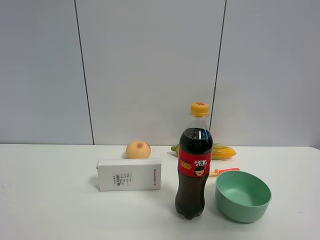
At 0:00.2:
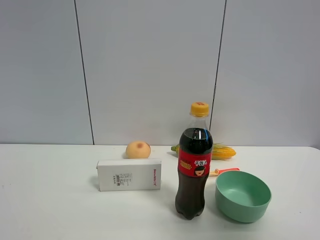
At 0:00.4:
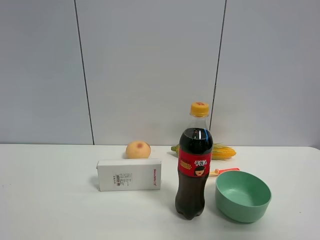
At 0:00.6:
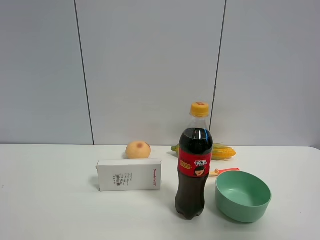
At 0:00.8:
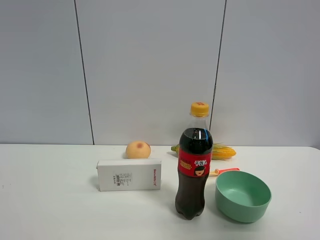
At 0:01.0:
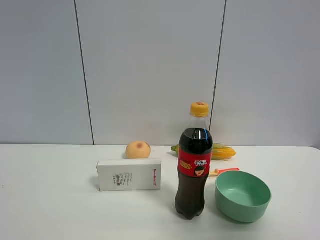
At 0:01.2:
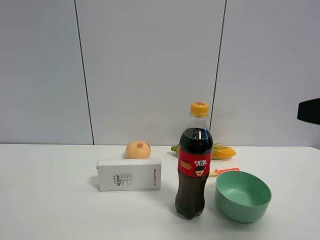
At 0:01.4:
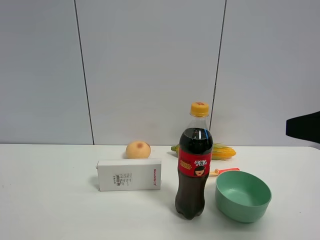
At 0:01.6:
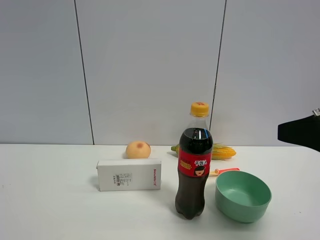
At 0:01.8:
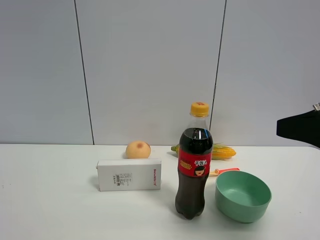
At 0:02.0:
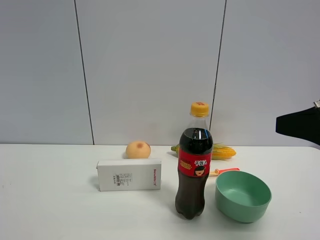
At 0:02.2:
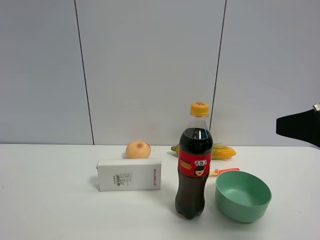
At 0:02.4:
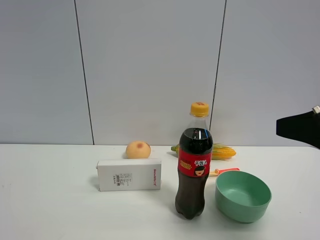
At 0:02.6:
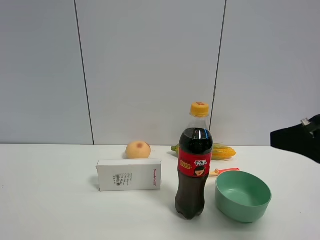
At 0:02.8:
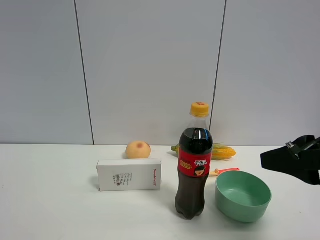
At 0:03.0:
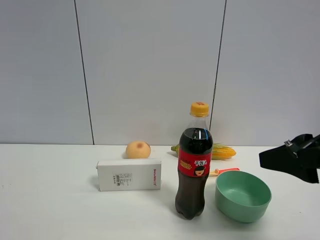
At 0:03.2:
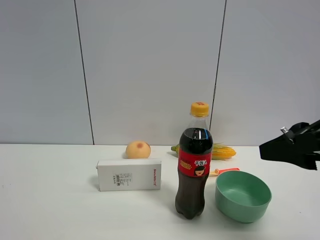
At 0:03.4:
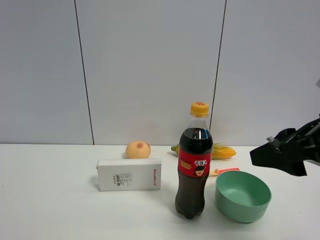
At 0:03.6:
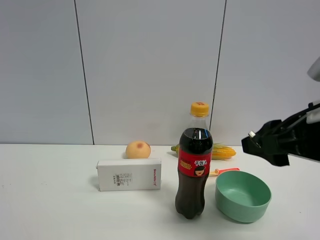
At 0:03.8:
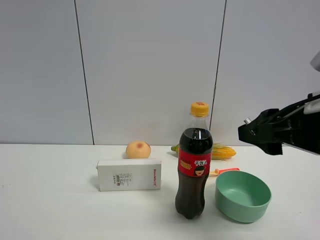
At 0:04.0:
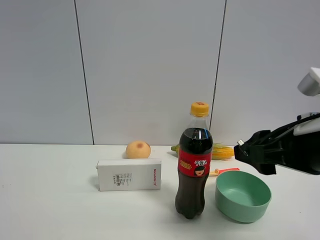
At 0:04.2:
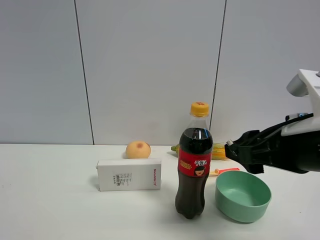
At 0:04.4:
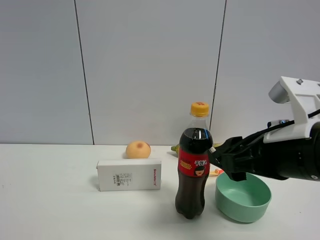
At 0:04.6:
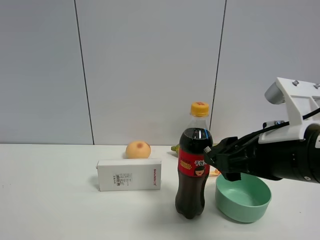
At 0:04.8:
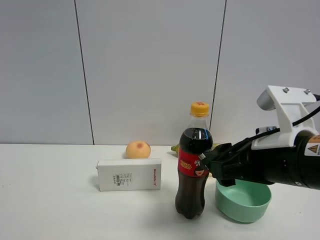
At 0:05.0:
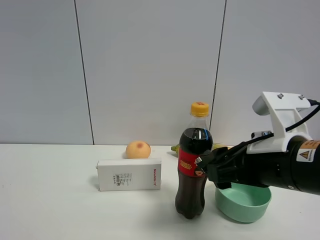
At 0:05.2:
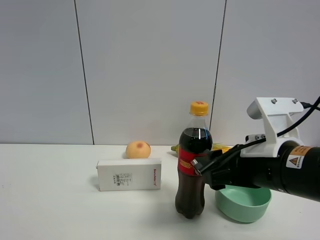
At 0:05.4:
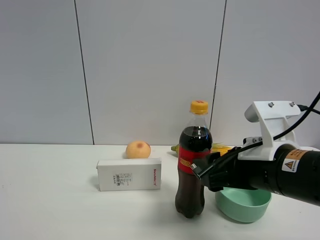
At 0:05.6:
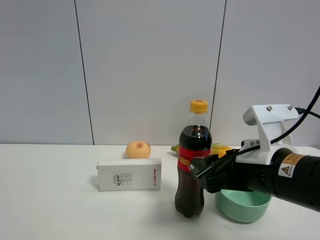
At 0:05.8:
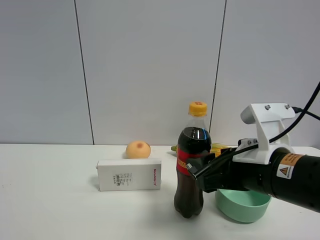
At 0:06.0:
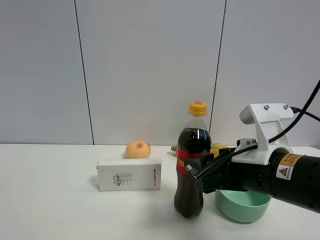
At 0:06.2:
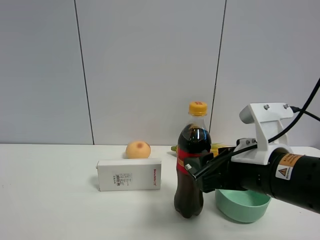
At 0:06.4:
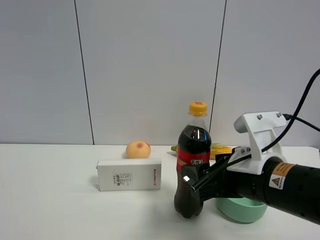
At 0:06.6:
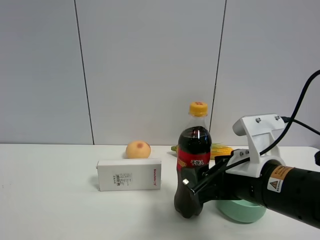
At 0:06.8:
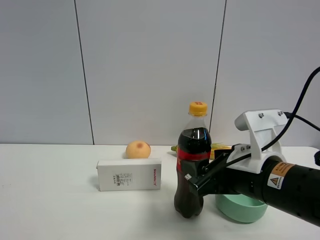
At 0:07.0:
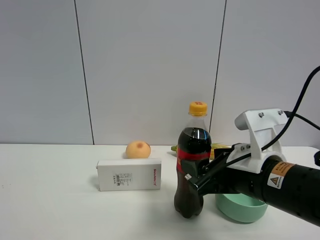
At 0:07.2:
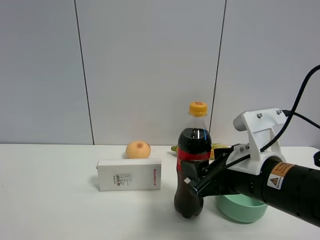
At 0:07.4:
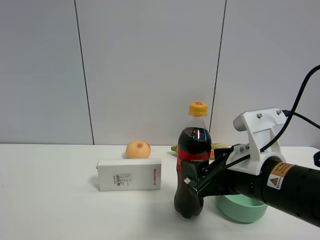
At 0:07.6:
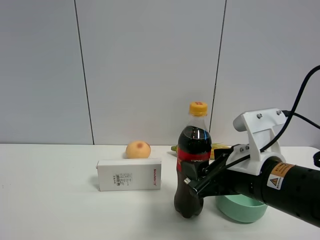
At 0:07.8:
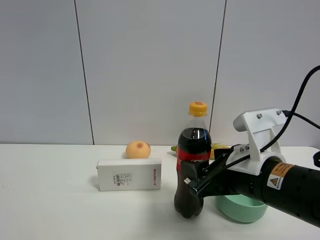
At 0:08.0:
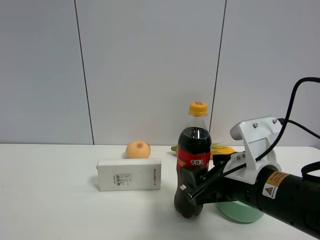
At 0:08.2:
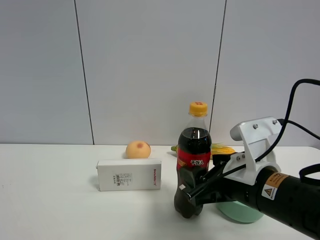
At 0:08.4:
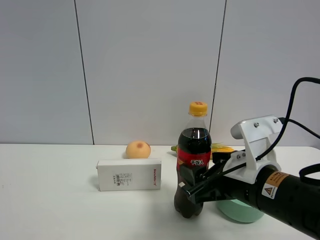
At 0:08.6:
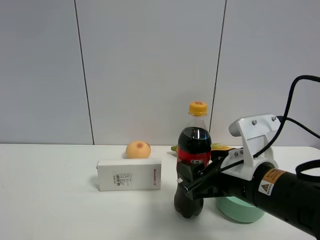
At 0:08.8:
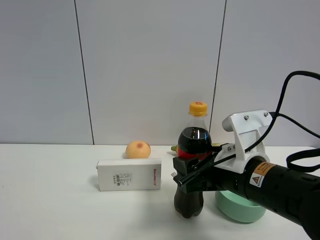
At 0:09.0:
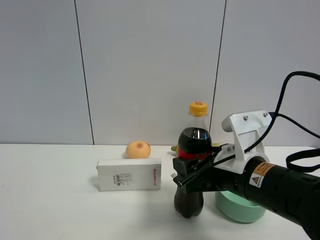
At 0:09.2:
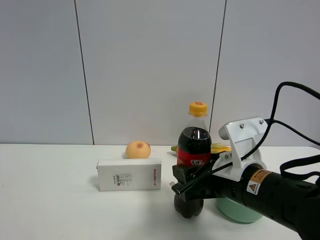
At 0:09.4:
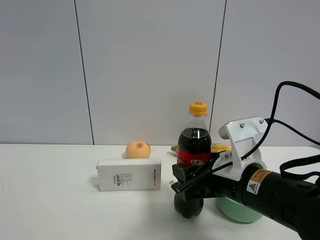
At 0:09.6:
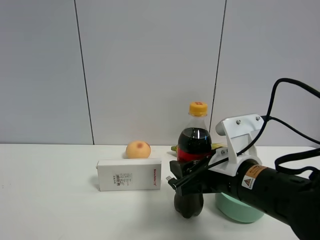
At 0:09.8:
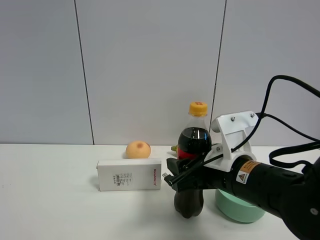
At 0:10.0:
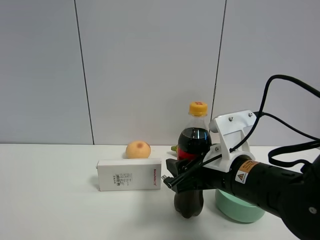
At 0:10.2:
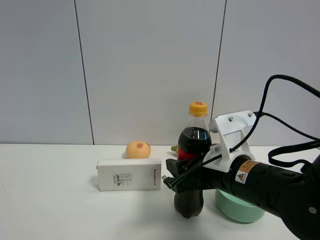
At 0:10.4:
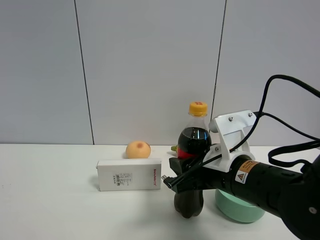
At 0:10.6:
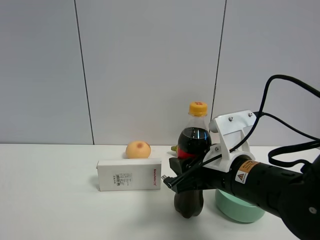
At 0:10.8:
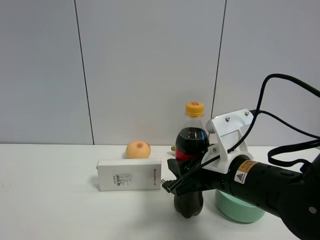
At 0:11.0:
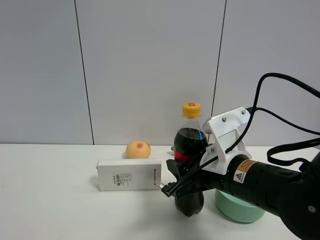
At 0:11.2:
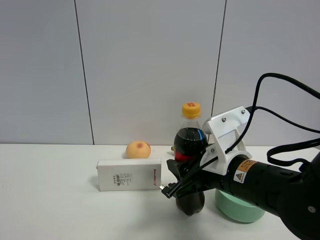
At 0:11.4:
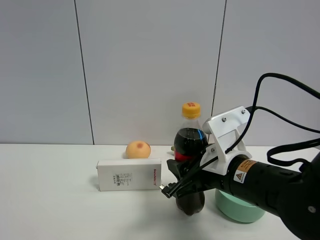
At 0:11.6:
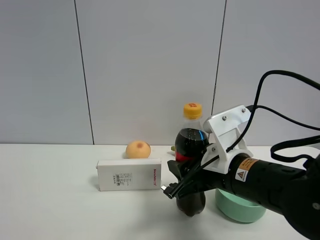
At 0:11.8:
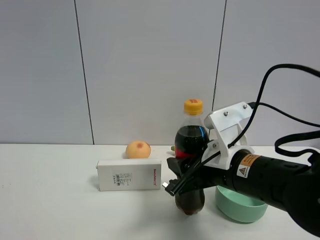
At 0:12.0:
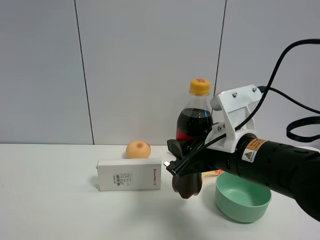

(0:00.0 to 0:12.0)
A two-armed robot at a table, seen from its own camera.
Task of the whole recording: the gripper move the object.
Step, 0:00.0 - 0:10.4: Grasp the coke with the right gripper.
0:00.0 - 0:01.6: The right gripper moves downward, roughly 10 cm.
0:01.6 - 0:03.0: The grippers stay close to where they were, moving slightly.
0:03.0 - 0:04.4: The right gripper goes approximately 10 cm to the left.
0:04.4 - 0:06.0: The right gripper shifts by some 5 cm.
0:06.0 - 0:12.0: There are only small adjustments of the grippers.

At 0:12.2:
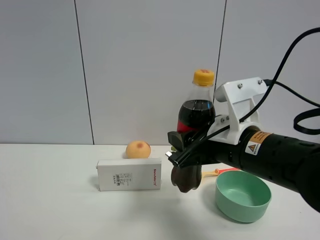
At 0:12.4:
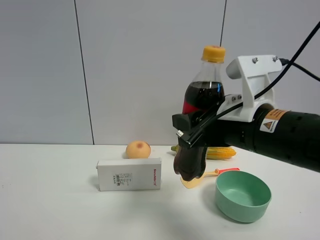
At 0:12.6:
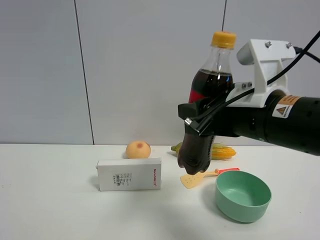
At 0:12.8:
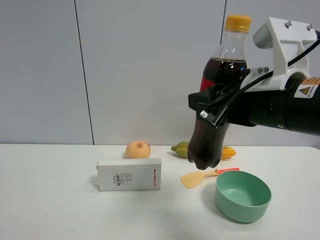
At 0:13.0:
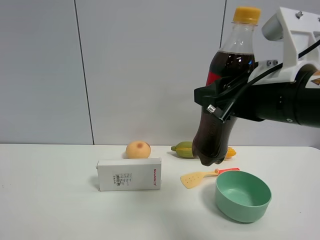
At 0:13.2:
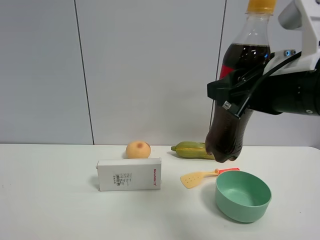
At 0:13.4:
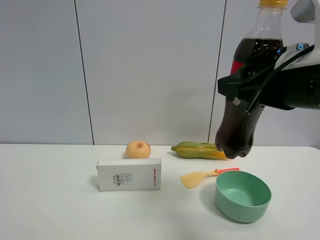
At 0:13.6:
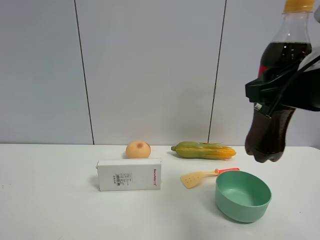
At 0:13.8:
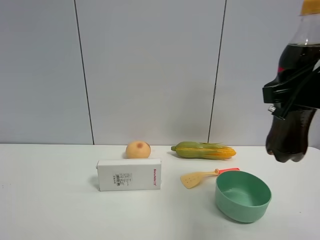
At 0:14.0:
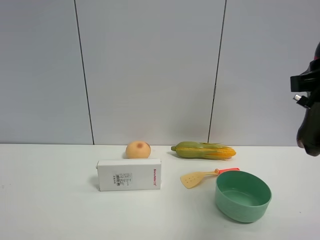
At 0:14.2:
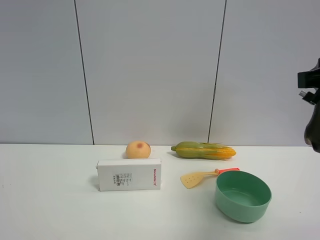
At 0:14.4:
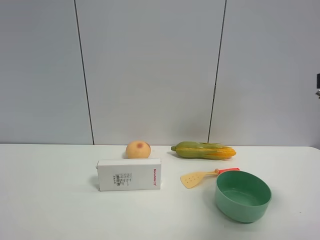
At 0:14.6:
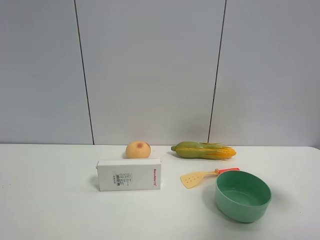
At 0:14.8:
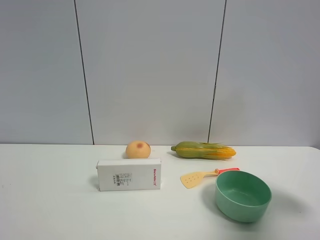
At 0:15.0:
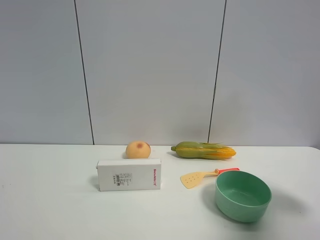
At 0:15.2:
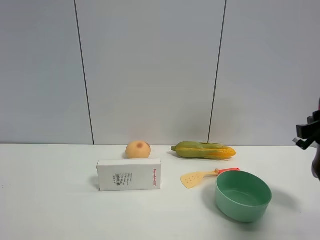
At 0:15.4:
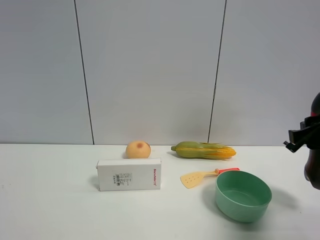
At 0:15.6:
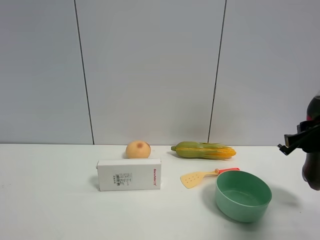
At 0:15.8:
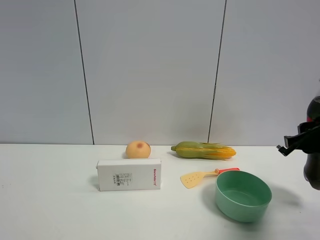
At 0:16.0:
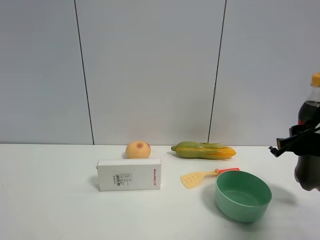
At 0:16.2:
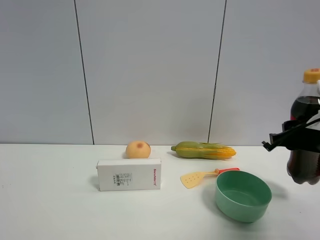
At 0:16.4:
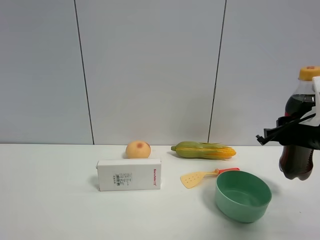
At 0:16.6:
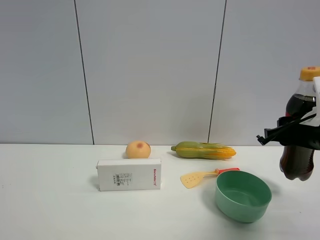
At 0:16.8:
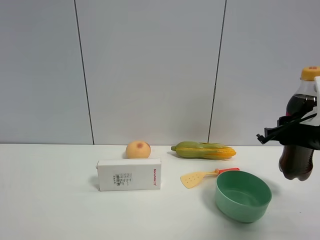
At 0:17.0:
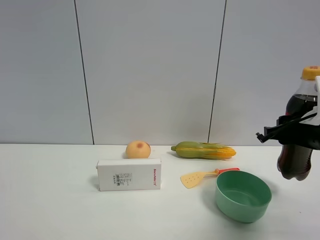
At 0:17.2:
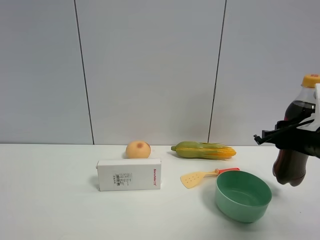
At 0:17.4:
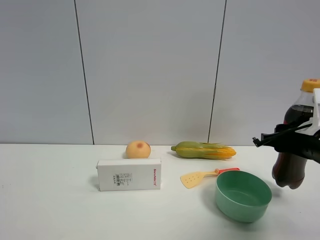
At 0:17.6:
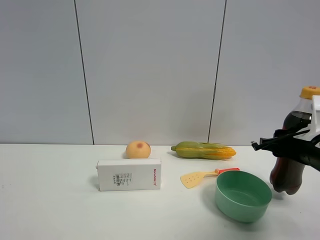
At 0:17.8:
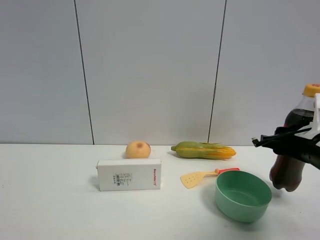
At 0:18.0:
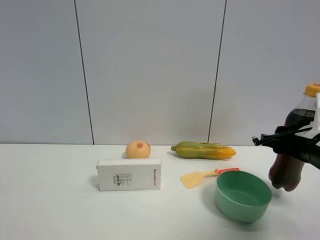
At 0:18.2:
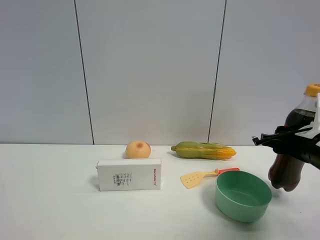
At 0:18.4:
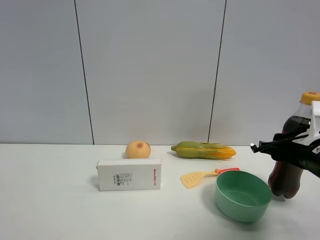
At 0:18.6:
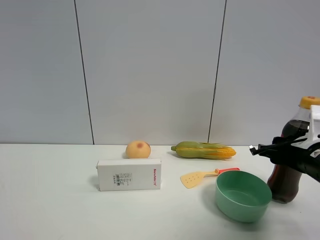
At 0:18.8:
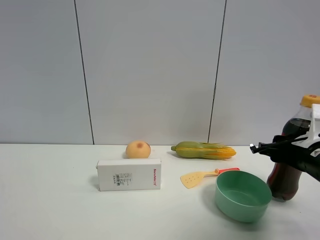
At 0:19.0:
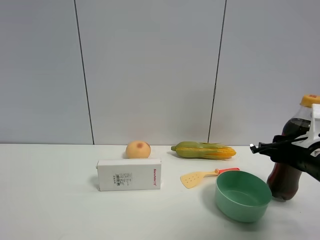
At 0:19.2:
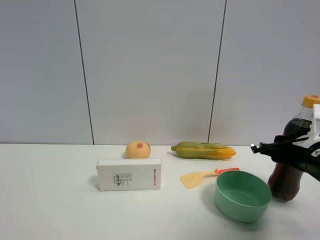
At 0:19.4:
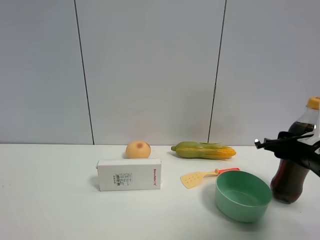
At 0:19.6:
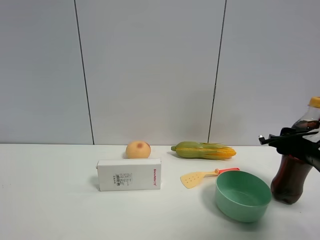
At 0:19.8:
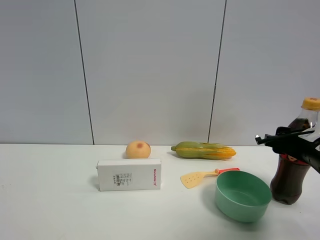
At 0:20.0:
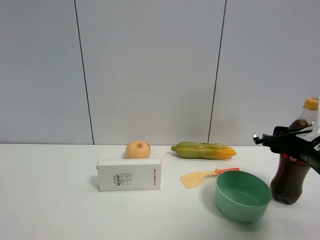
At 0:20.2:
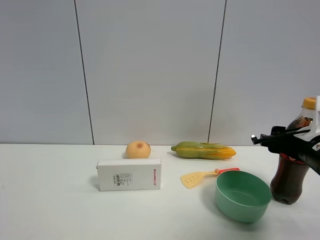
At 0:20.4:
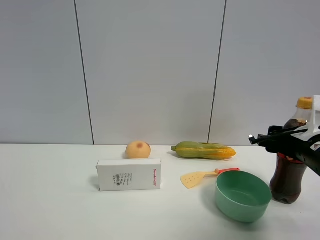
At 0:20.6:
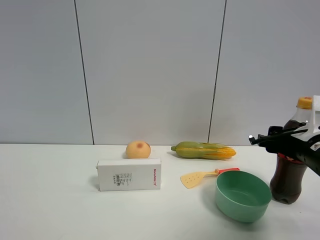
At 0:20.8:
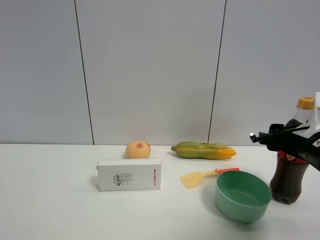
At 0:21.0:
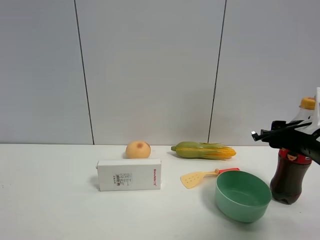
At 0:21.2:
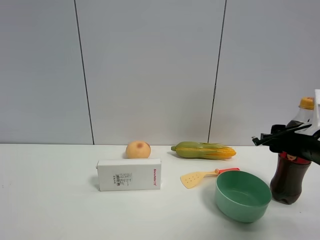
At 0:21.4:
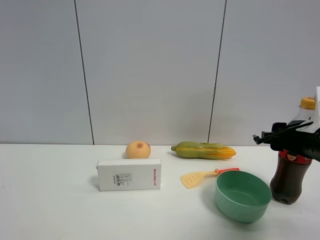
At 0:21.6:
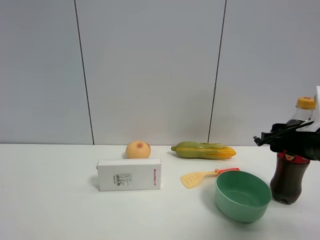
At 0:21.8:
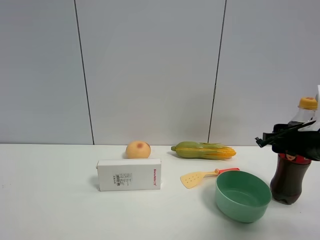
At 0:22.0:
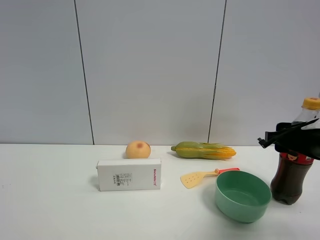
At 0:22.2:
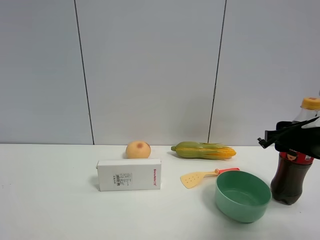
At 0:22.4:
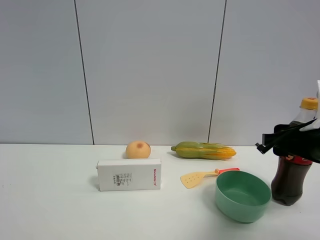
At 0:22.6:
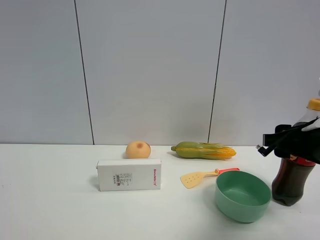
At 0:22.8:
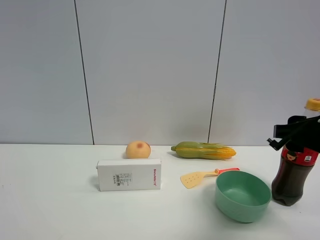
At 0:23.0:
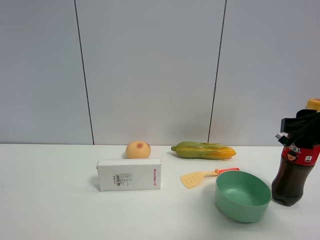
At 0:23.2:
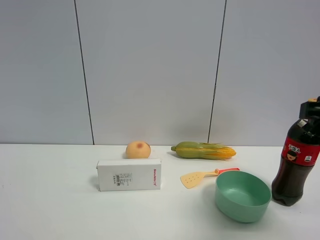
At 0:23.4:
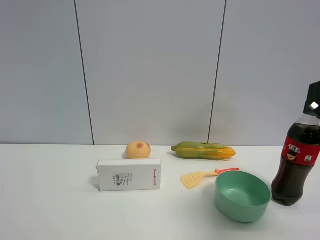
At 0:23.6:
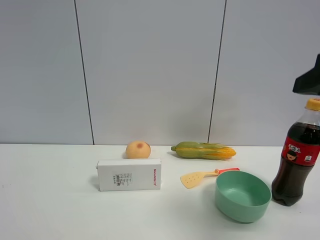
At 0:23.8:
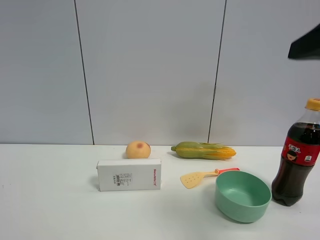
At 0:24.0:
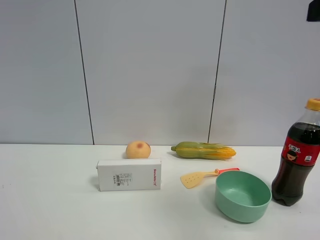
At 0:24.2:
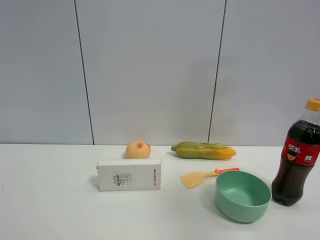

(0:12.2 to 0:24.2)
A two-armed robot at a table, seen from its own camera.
Task of the whole recording: the gripper move the object.
Step, 0:12.2 - 0:21.4: Place the coke on the table with the right gripper.
0:12.2 - 0:13.8: The right gripper heads upward and to the right, covering roughly 15 cm.
0:13.8 - 0:15.2: The right gripper is displaced downward and to the right by roughly 10 cm.
0:15.2 - 0:16.6: The right gripper ends up about 5 cm from where it was.
0:16.6 - 0:21.2: The grippers make only small movements.
0:21.2 - 0:22.6: The right gripper ends up some 5 cm from where it was.
0:22.6 - 0:24.2: The right gripper shifts some 20 cm upward and backward.
